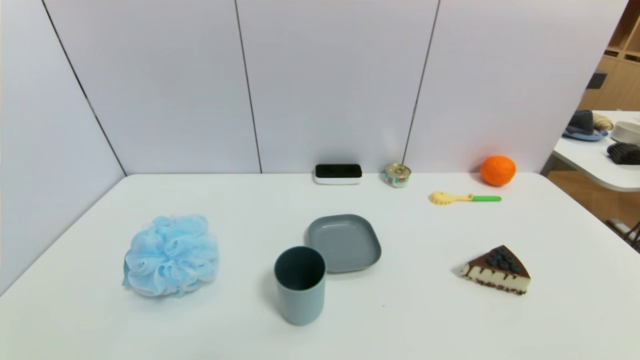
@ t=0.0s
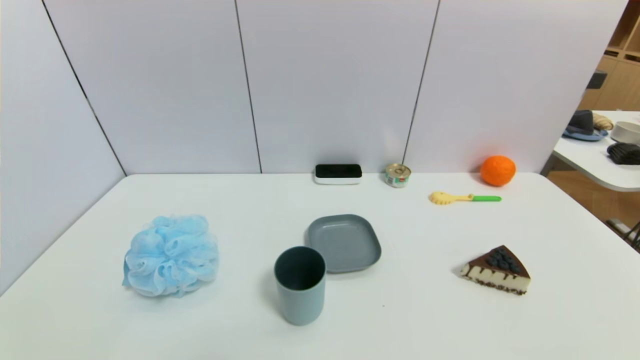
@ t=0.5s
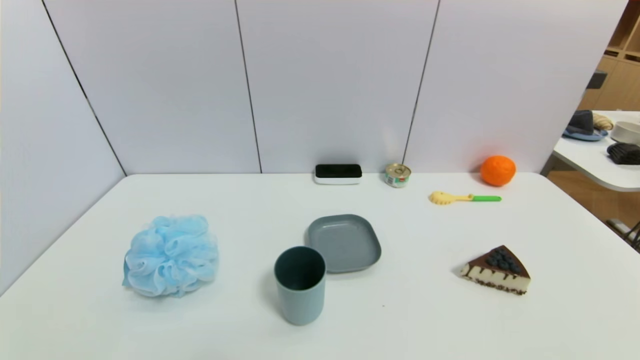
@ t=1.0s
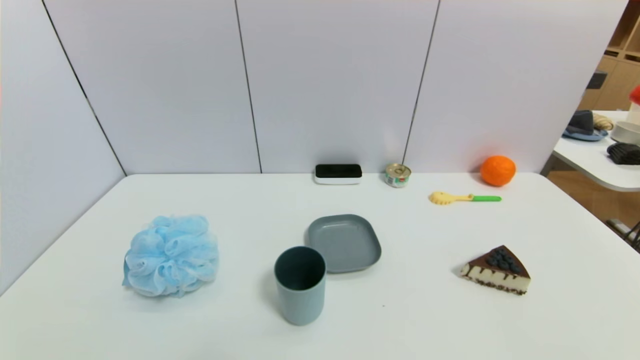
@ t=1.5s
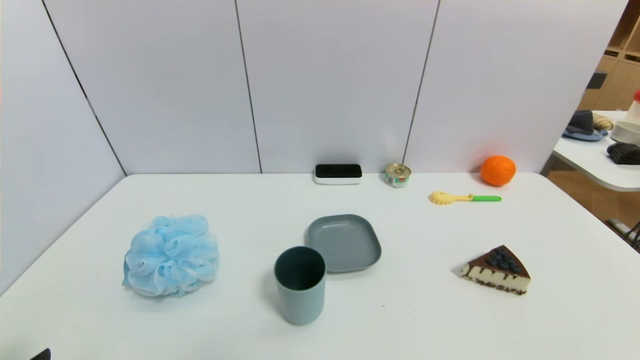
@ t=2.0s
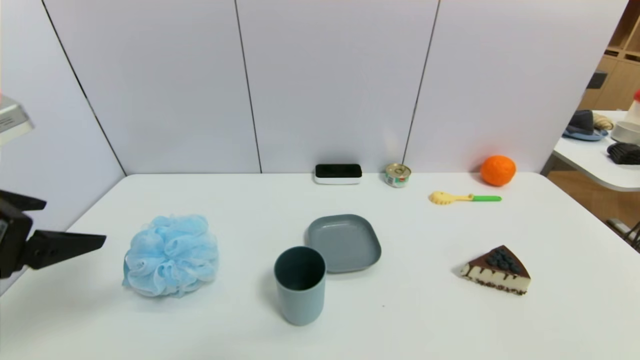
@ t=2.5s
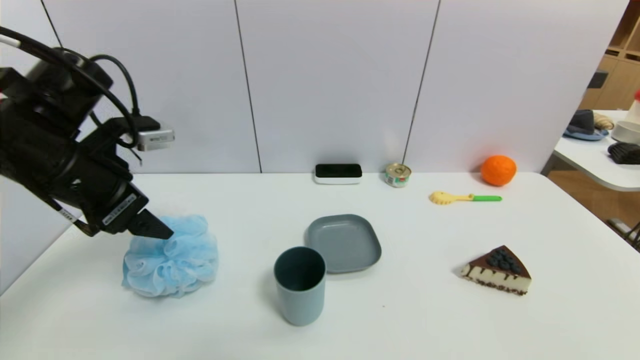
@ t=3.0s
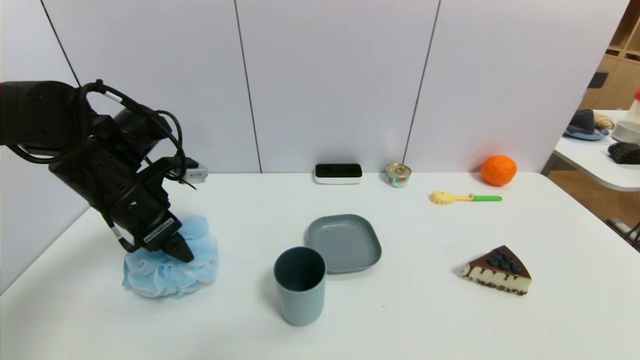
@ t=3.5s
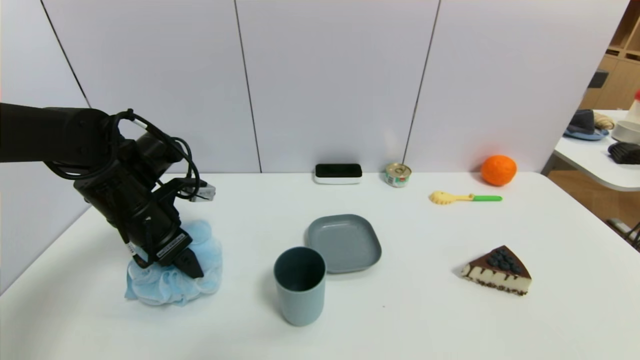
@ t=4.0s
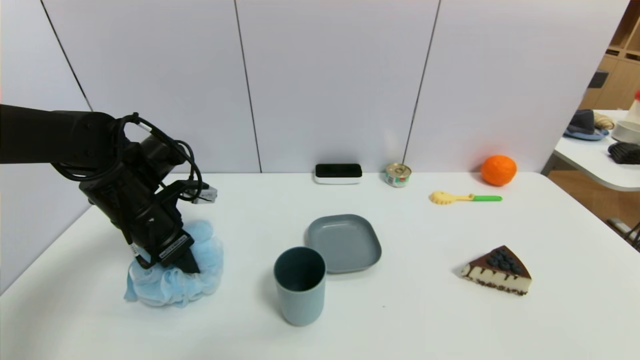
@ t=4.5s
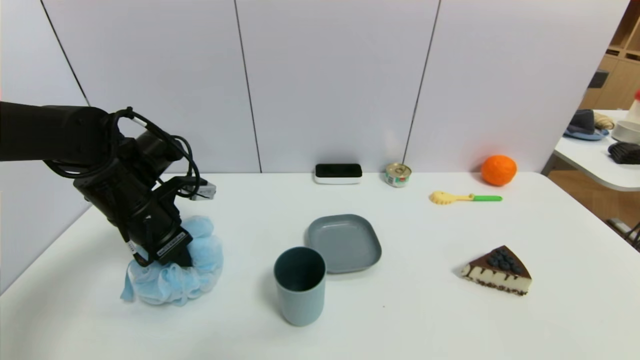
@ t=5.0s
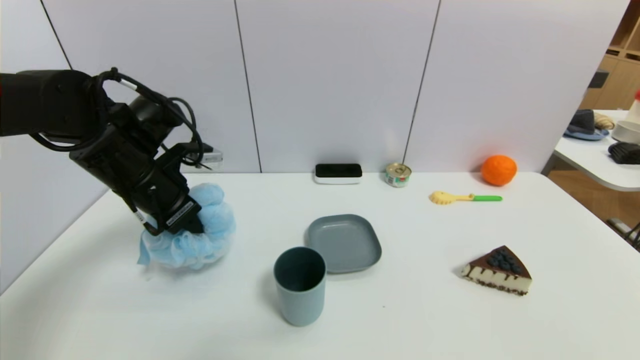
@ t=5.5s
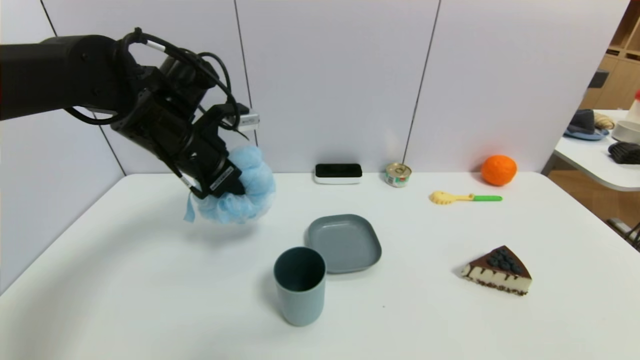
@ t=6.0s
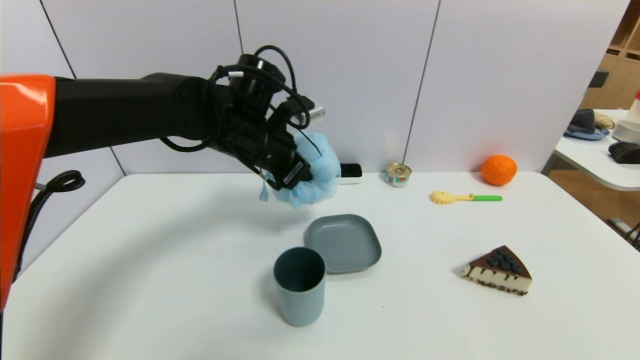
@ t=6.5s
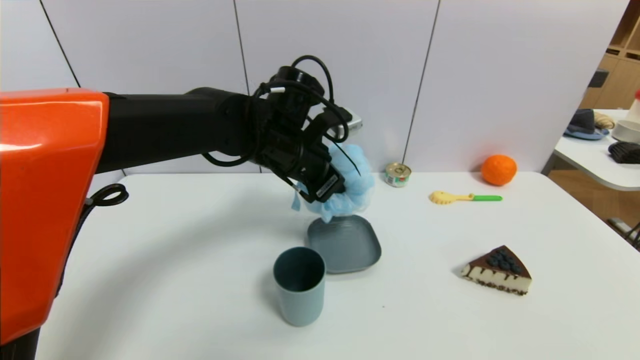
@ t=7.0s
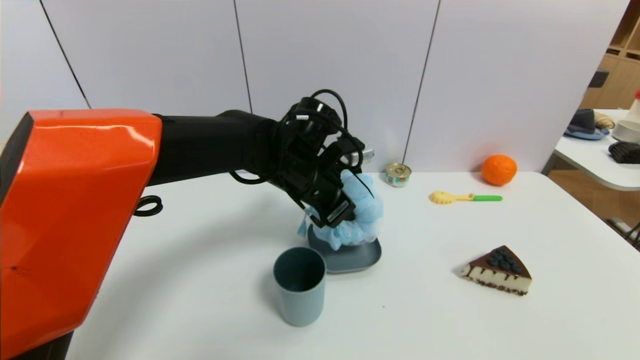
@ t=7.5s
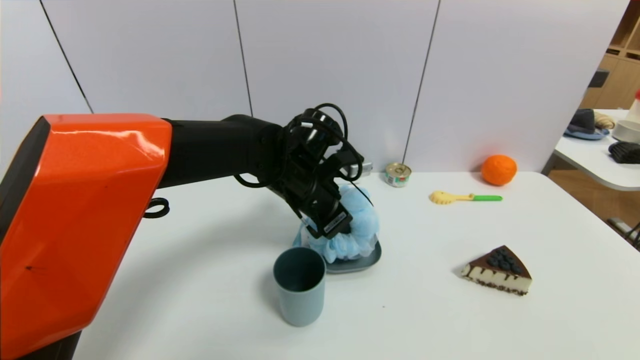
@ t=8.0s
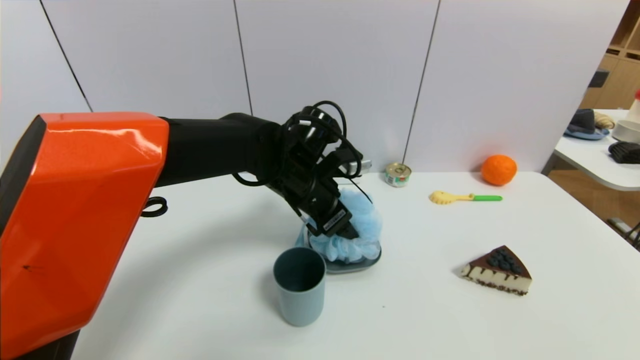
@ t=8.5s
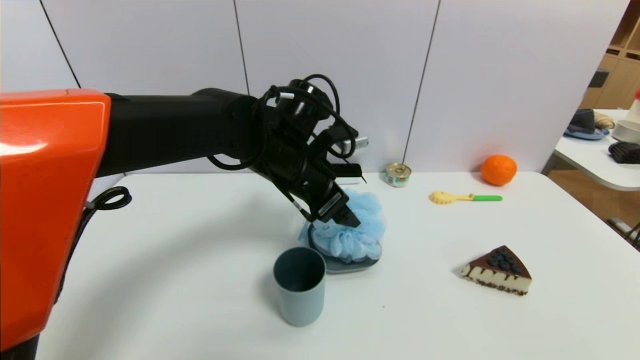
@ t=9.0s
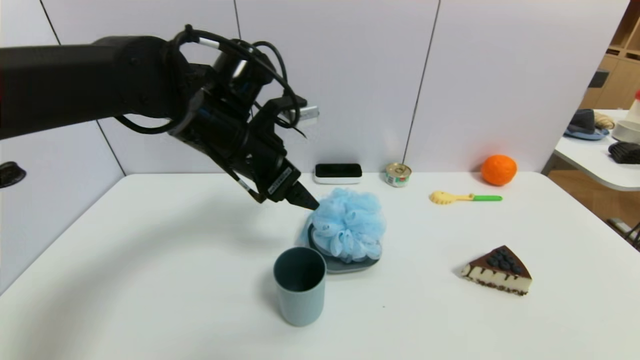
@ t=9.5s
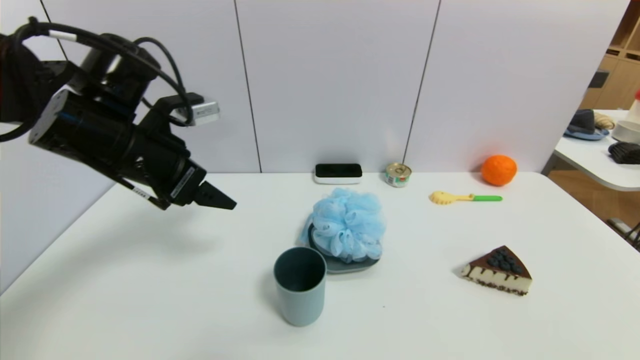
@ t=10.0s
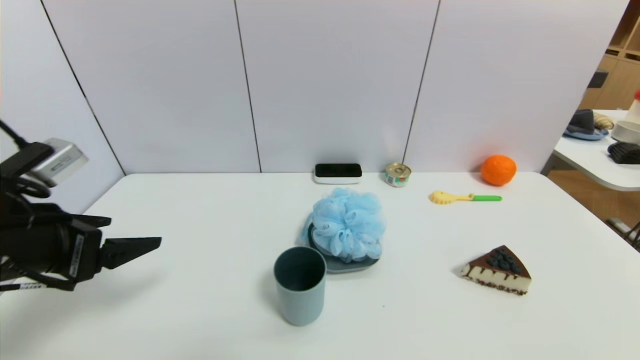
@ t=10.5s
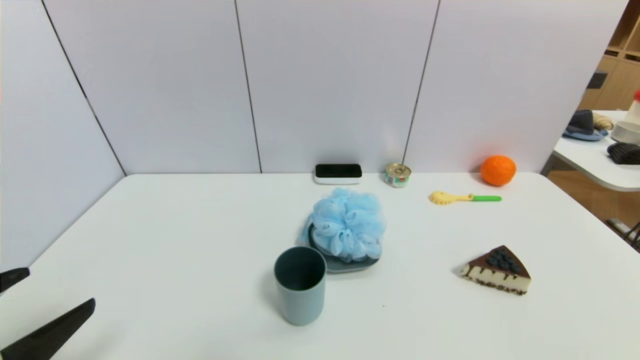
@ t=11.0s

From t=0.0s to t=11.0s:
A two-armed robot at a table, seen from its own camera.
Task of the whole recording: use a gripper to pick the target object and place on the dish.
Step, from t=0.0s to t=4.5s: Grasp the shower sphere with the left gripper.
Step, from t=5.0s to t=9.5s: Place the shower sphere on the dish with the left gripper.
From t=2.0s to t=3.5s: The left gripper heads forward, covering roughly 30 cm.
From t=3.5s to t=5.5s: The left gripper closes up.
From t=5.5s to t=7.5s: The left gripper is displaced to the right by approximately 20 cm.
From t=7.5s to t=9.0s: The left gripper opens its fingers.
From t=9.0s to t=11.0s: The left gripper moves backward and to the left, approximately 40 cm.

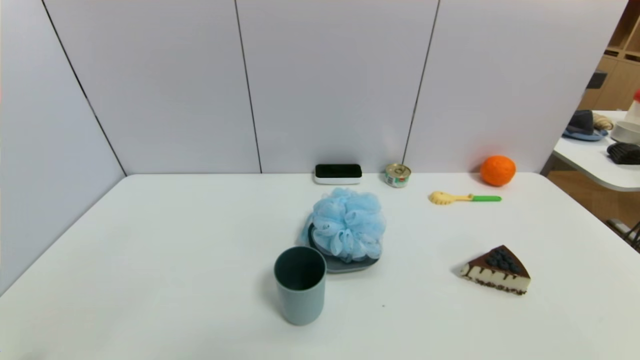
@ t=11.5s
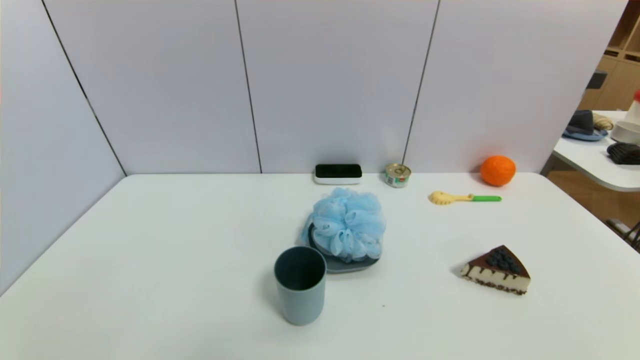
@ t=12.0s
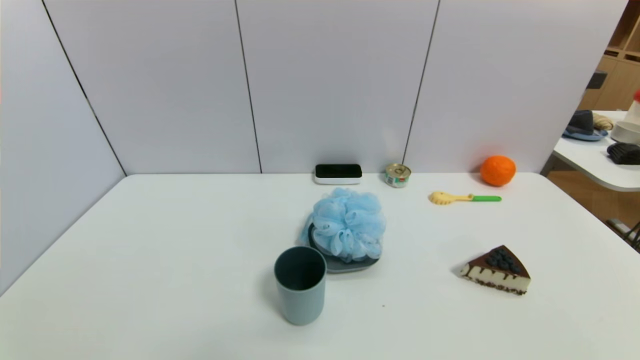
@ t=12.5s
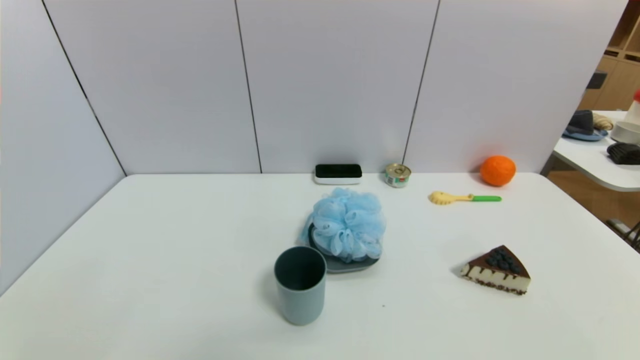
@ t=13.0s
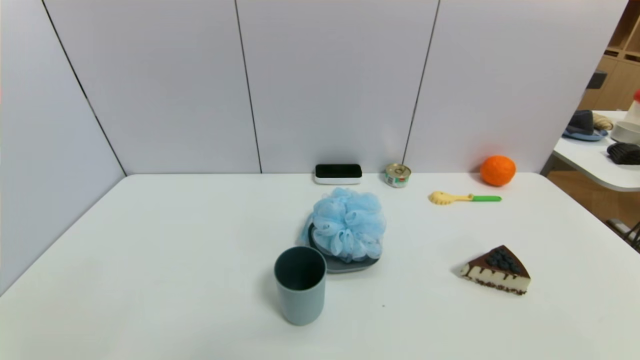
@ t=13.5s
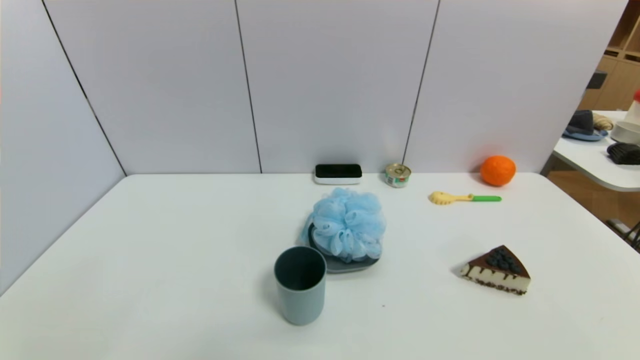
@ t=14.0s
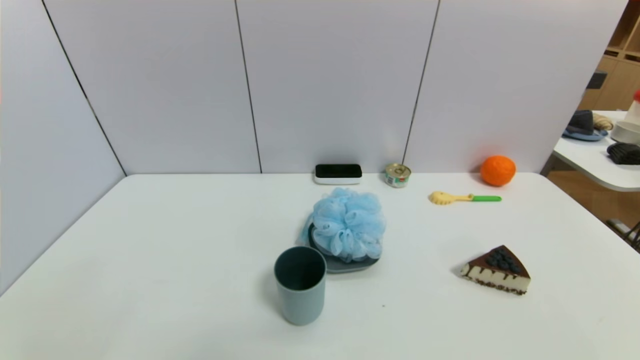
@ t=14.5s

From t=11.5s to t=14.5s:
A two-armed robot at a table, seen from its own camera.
Task of the whole recording: use a gripper to pick the target object and place on the dish.
From t=13.0s to t=14.5s: The two grippers keep their place.
